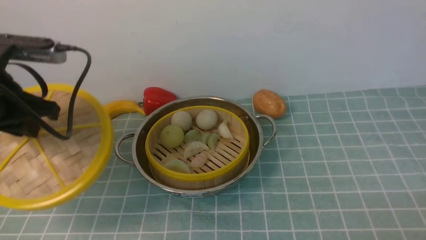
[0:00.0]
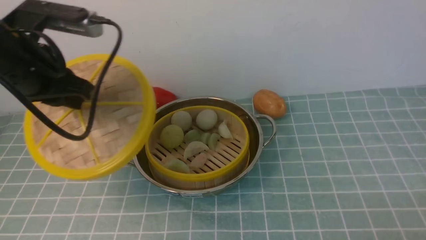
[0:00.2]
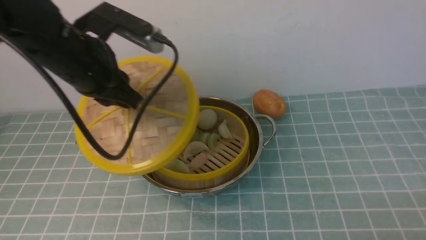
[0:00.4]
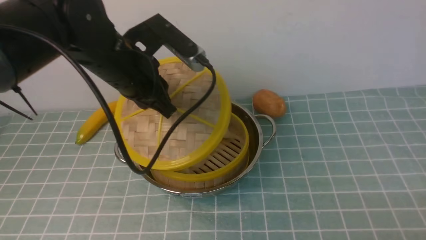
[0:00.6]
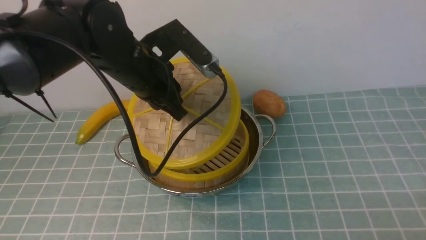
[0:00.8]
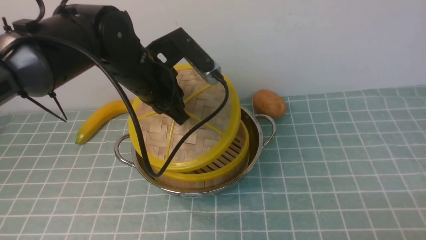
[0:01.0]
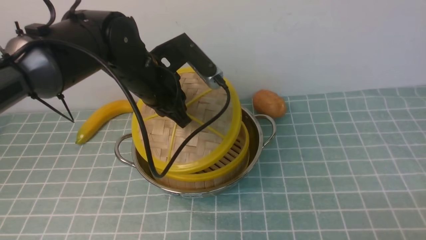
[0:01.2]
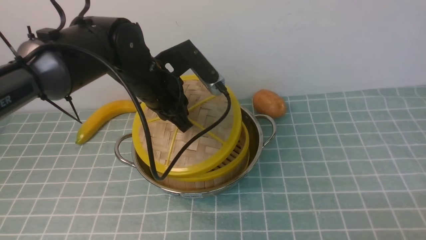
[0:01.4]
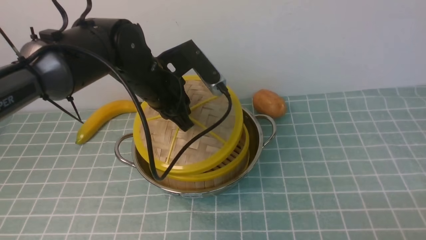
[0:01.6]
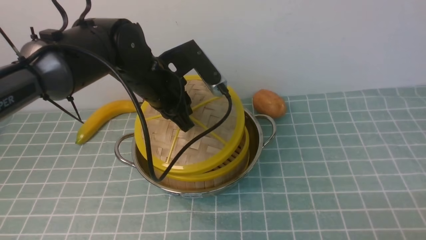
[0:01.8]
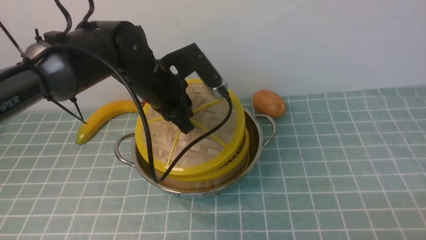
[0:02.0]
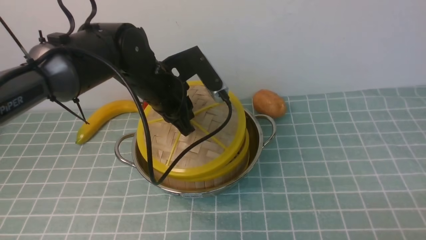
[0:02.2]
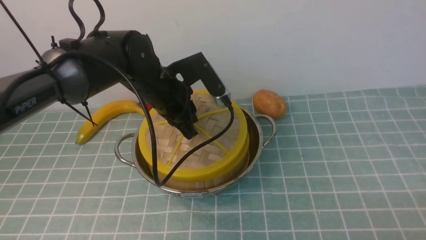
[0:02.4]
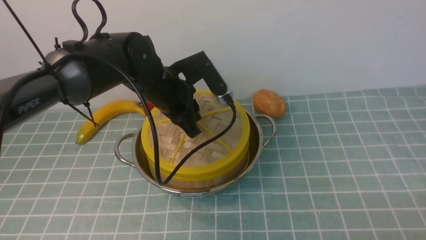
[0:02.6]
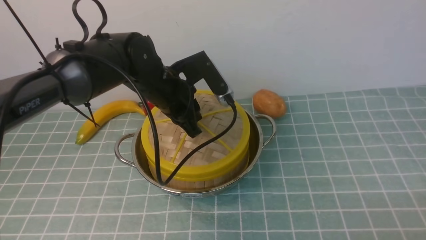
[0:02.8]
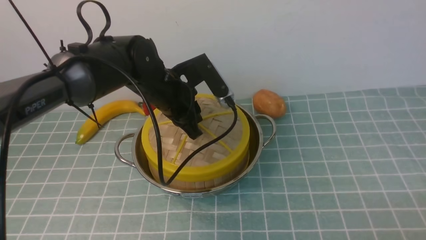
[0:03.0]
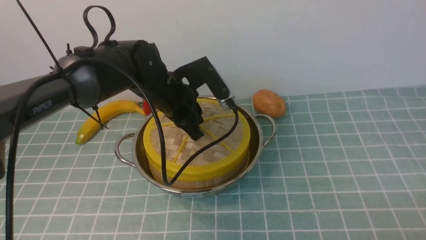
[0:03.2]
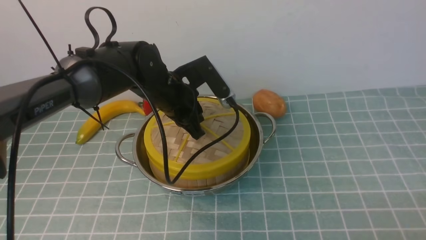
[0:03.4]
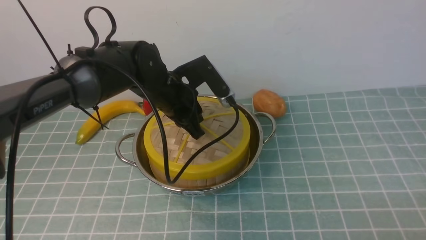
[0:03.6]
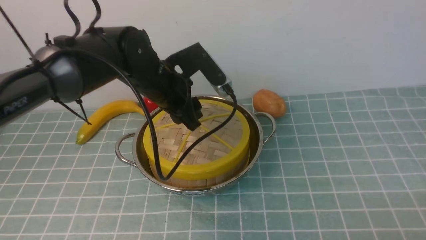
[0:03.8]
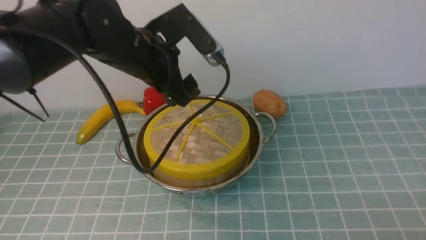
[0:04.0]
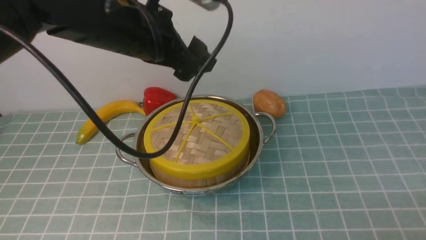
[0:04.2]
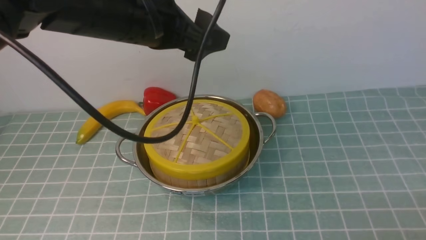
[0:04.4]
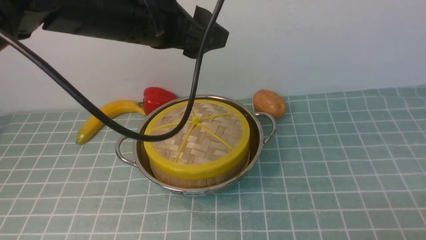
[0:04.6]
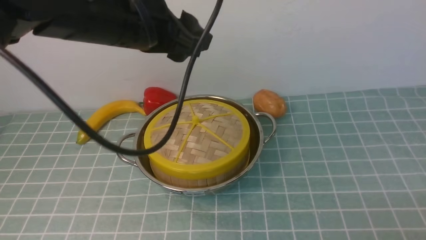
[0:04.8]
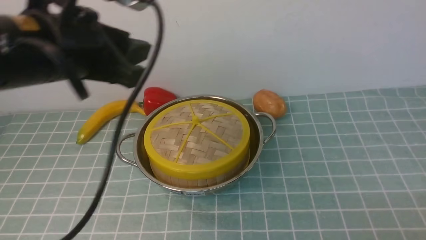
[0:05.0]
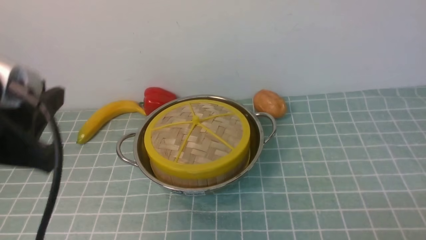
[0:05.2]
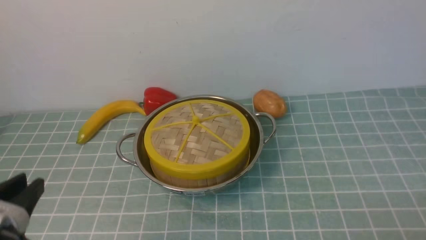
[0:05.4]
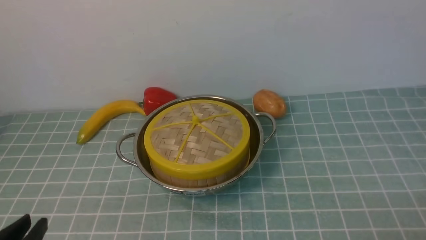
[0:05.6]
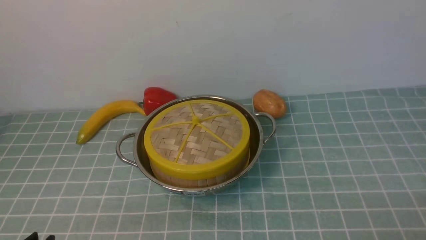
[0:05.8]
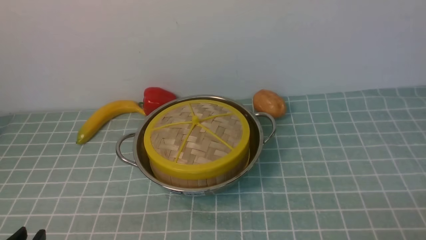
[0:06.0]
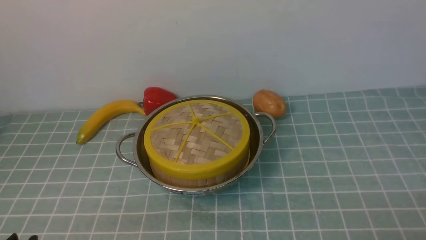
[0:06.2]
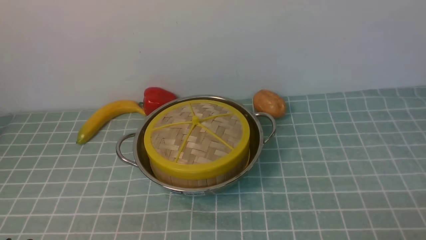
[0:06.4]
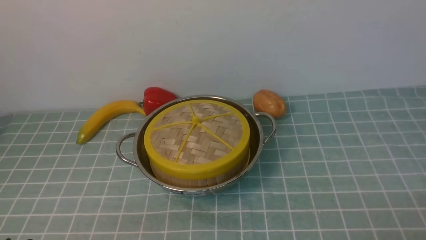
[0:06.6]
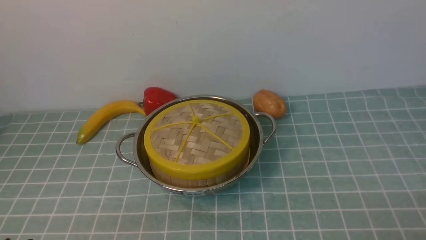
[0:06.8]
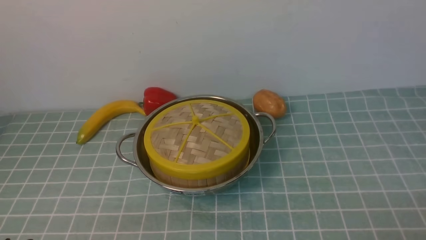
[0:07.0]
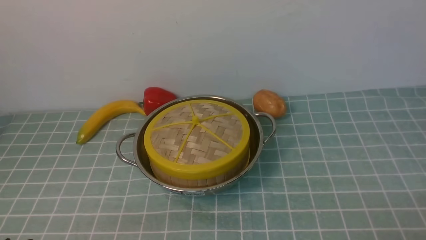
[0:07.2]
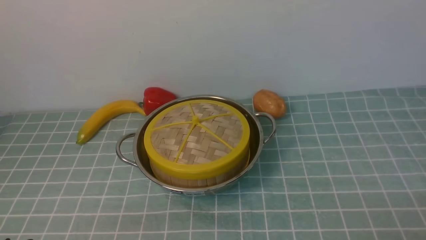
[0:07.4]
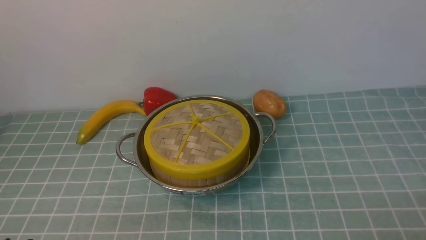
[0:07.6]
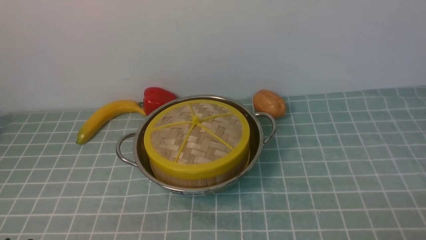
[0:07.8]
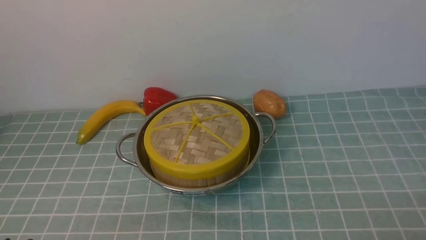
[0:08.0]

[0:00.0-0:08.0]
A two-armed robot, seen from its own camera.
Task of the whole recording: place the steamer in the pot on the blue tablecloth, and put the lid on the steamer.
Step, 0:00.2 to 0:04.6: use the left arm to place the steamer lid on the steamer.
0:00.0 to 0:01.6: The left gripper is displaced to the right and forward by some 20 cm.
0:01.6 to 0:03.2: The grippers stay close to where they were, moving slightly.
0:03.2 to 0:04.8: The left gripper shifts approximately 20 cm upward and backward, and opens.
0:04.8 to 0:06.4: The left gripper is displaced backward, downward and to the left by some 35 cm, and closes its fingers.
0:06.4 to 0:08.0: The two grippers keep their place.

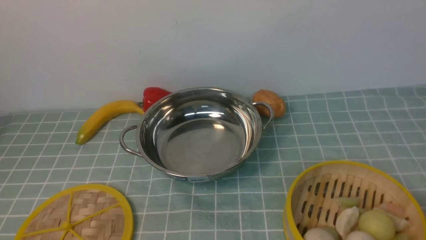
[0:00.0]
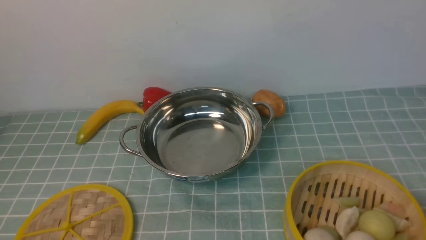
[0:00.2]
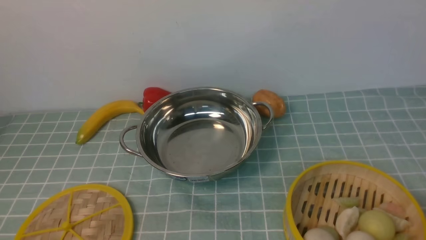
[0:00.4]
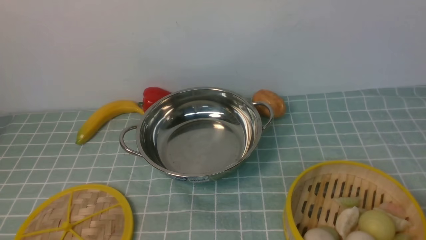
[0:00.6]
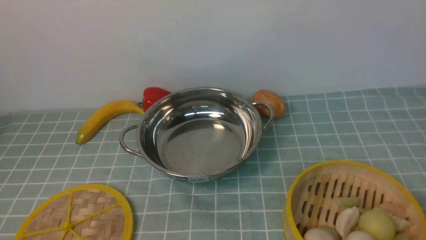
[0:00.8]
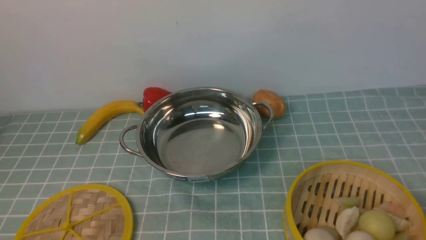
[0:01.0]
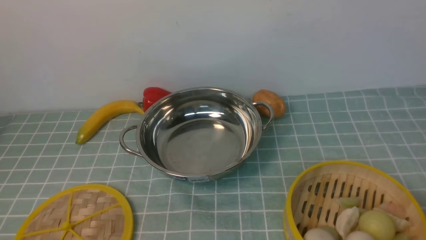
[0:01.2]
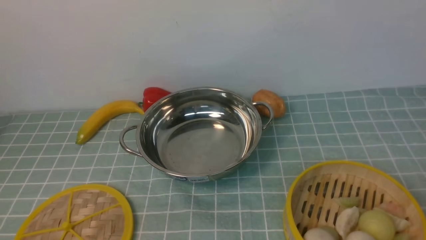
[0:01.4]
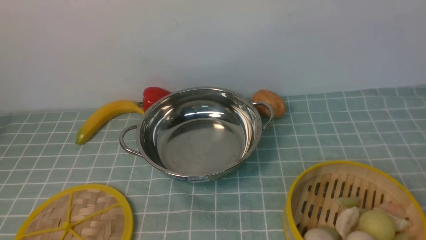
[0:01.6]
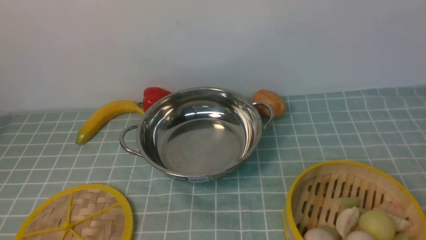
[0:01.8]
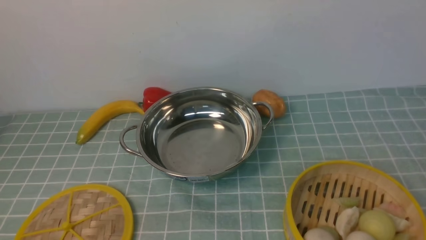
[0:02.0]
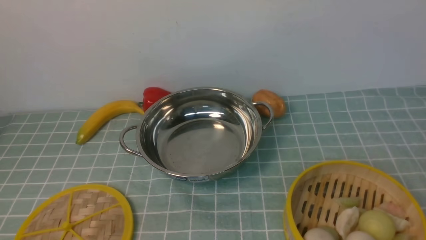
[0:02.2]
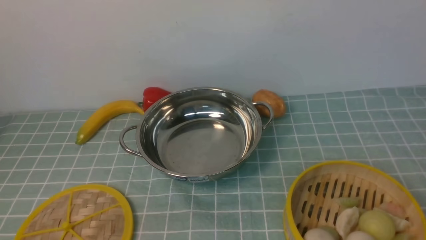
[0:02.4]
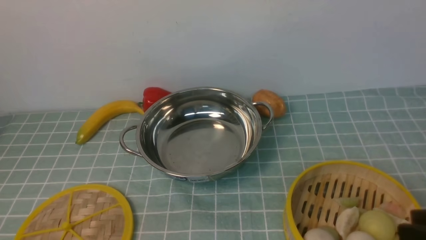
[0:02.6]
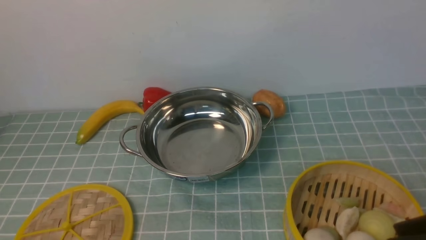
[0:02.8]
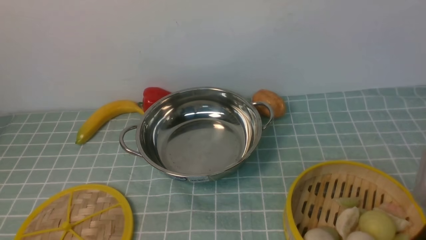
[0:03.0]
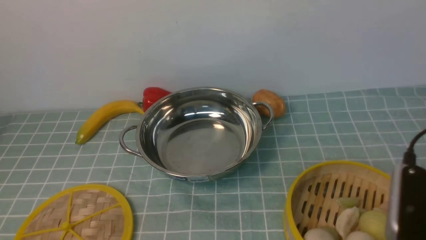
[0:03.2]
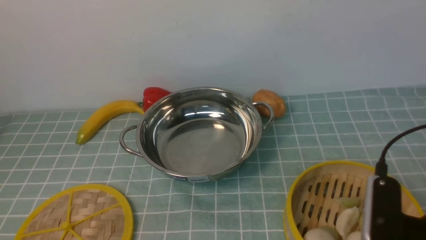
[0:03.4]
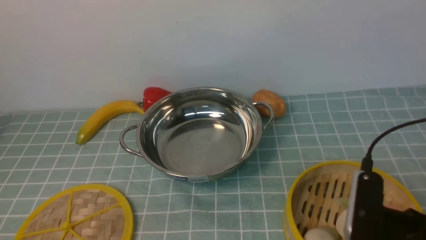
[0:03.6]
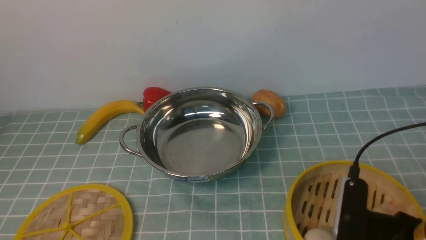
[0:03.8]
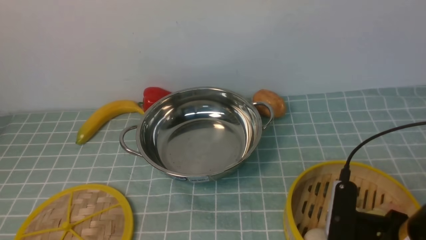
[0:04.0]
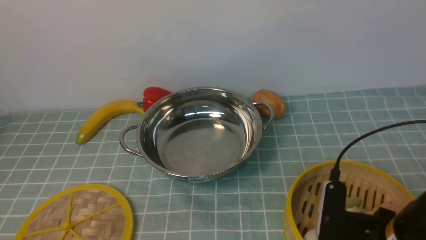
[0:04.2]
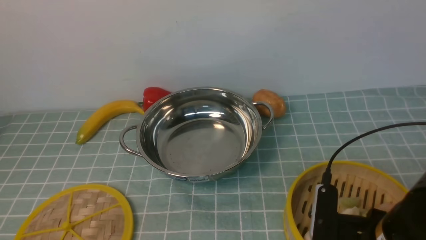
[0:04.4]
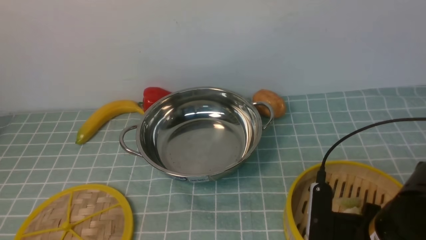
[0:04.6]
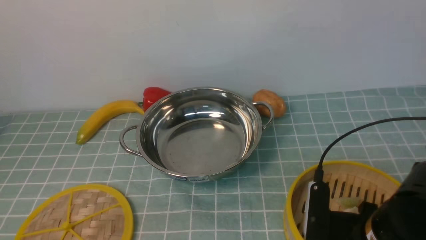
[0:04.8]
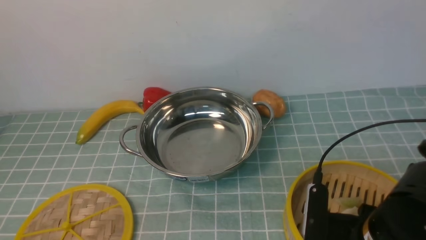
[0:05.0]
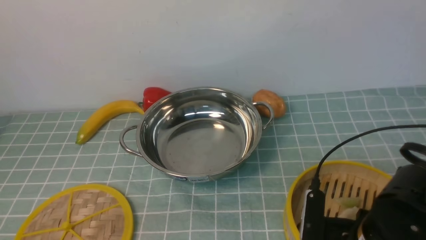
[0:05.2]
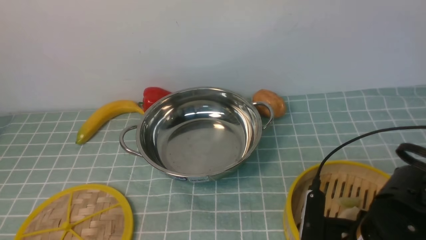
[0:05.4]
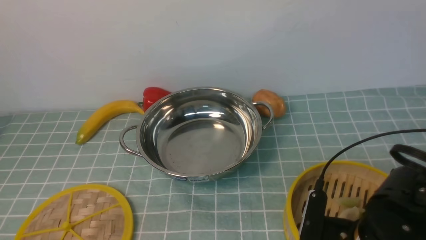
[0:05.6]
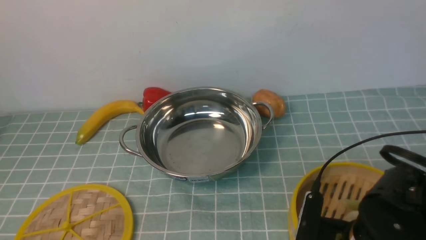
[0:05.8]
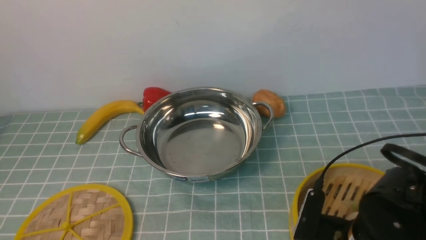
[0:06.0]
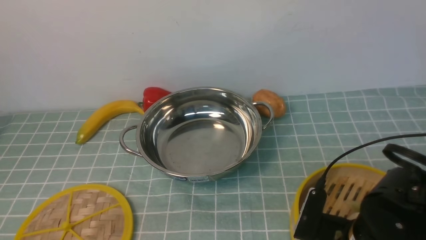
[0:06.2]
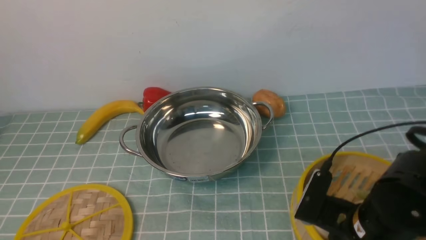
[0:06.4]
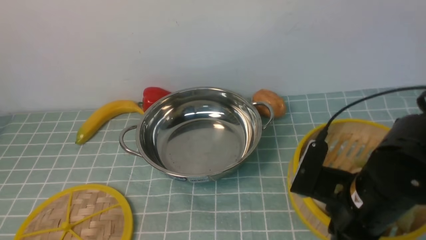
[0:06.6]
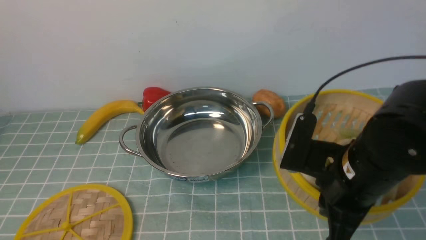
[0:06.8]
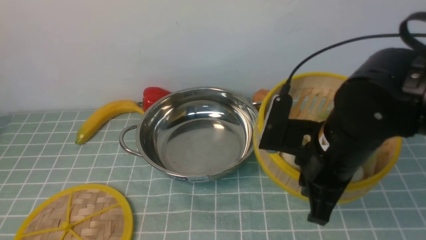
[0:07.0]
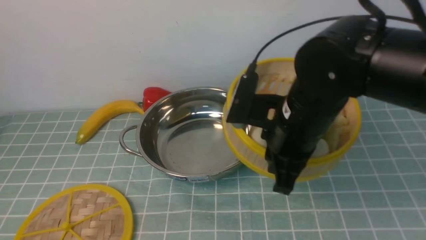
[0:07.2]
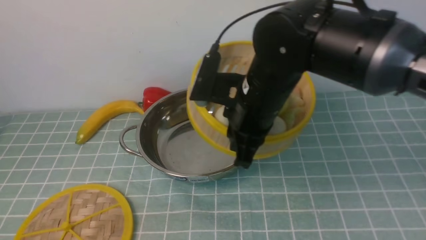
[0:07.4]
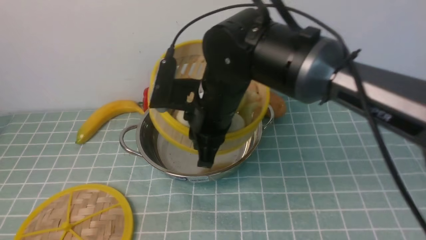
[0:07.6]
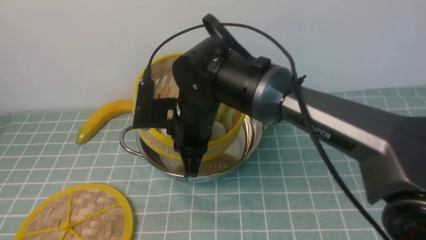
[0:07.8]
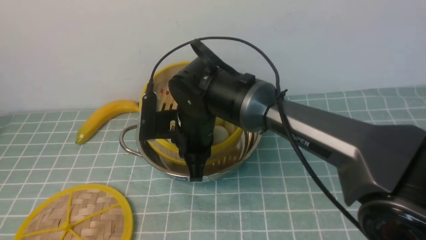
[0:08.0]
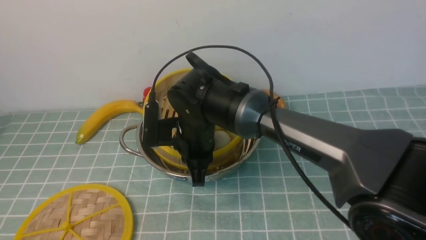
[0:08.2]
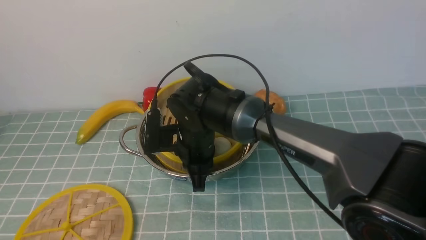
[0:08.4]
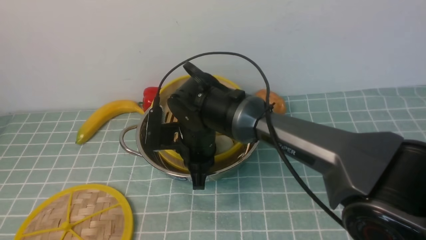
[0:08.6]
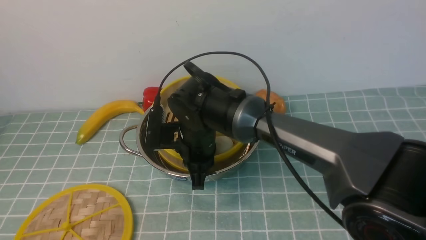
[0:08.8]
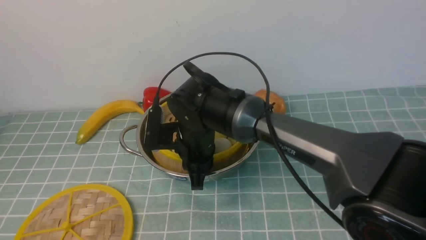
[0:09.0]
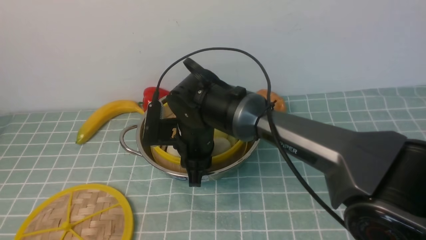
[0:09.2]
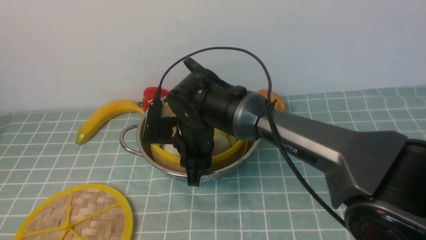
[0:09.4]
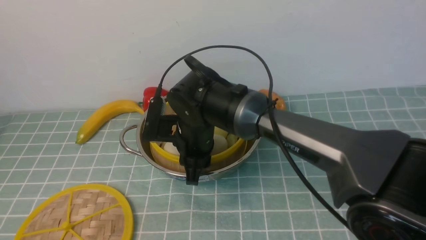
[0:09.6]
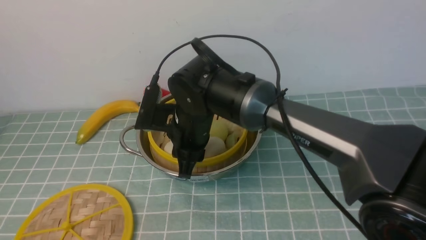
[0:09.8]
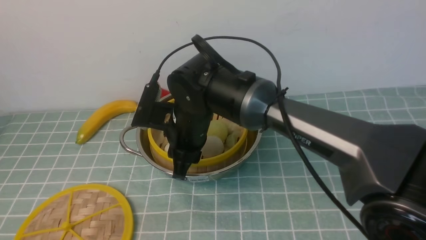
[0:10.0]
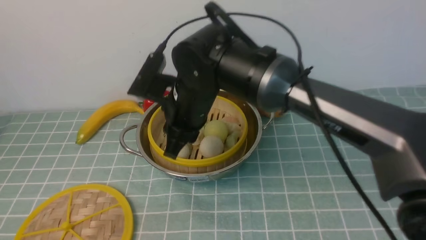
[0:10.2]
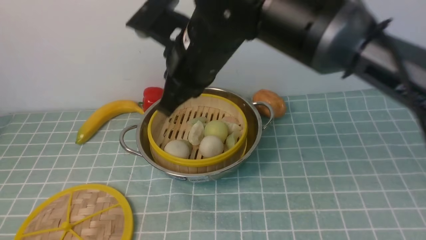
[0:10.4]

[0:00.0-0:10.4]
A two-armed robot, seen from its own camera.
Task of the whole recording: place the steamer in the pot on the blue tablecloth, and put the lid on the steamer.
Step, 0:00.0 to 0:06.6: use the right arm to lift the steamer closest to it.
Step, 0:06.8 to 0:10.0: use the right arm to put the steamer into the iron steamer pot in the middle.
0:03.0 to 0:04.4: The right gripper is displaced downward, to the left and forward by roughly 10 cm, and opens its fingers.
0:04.4 to 0:06.0: The right gripper shifts by approximately 5 cm, and closes up.
0:06.0 to 0:07.4: The right gripper shifts approximately 20 cm upward, forward and to the left.
0:07.4 to 0:09.0: The right gripper travels to the left, downward and forward by approximately 15 cm.
0:09.0 to 0:10.4: The right gripper travels upward by about 15 cm.
